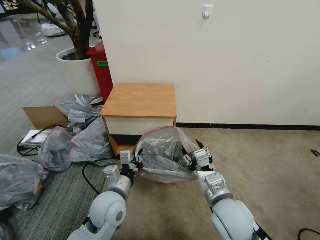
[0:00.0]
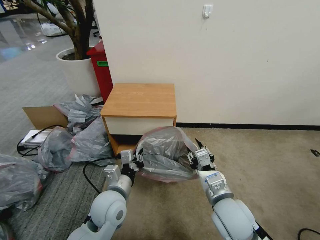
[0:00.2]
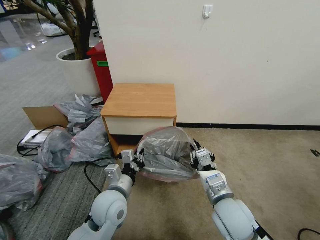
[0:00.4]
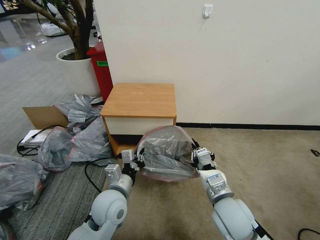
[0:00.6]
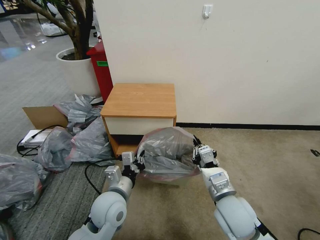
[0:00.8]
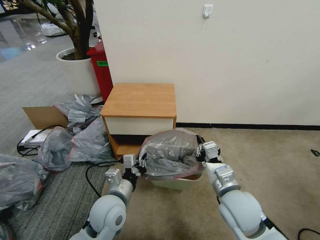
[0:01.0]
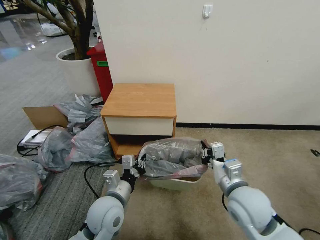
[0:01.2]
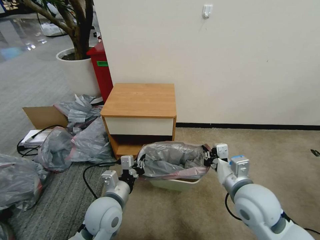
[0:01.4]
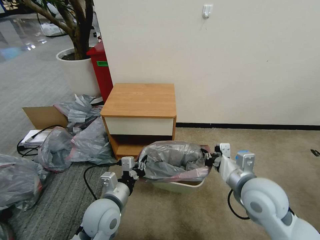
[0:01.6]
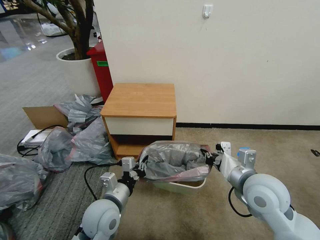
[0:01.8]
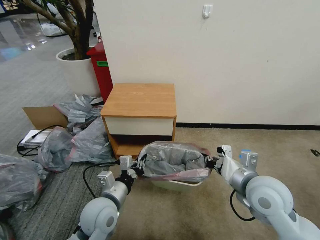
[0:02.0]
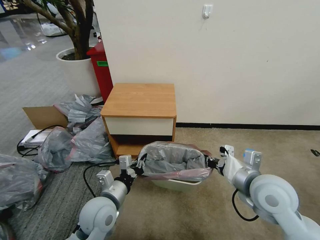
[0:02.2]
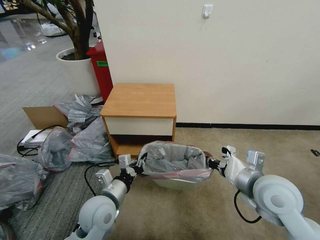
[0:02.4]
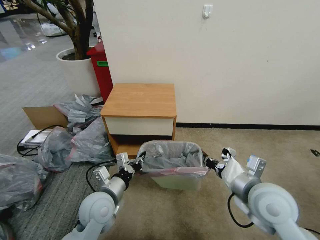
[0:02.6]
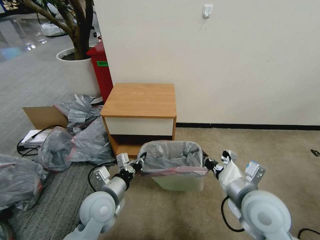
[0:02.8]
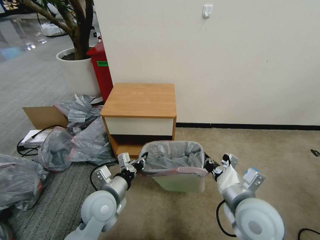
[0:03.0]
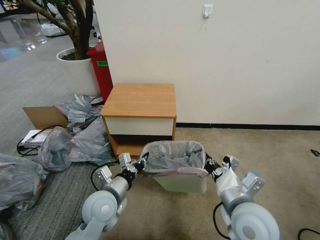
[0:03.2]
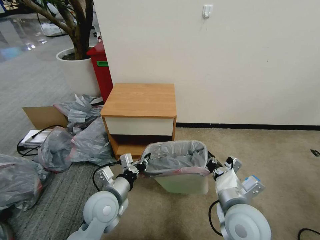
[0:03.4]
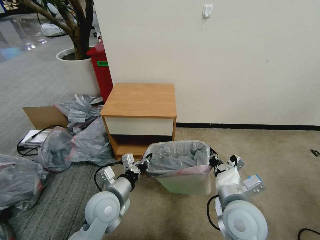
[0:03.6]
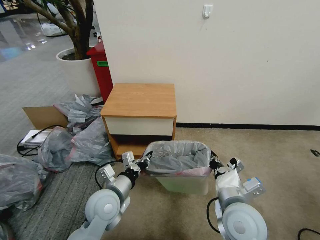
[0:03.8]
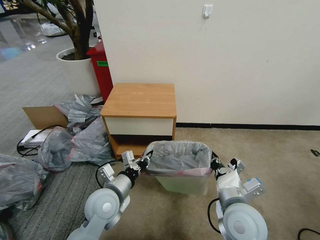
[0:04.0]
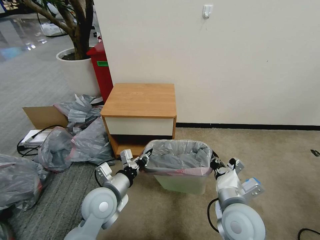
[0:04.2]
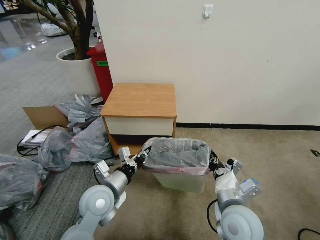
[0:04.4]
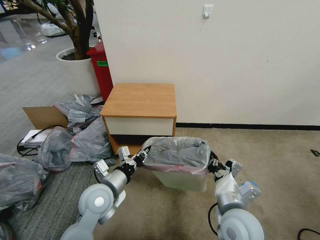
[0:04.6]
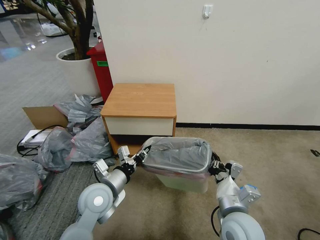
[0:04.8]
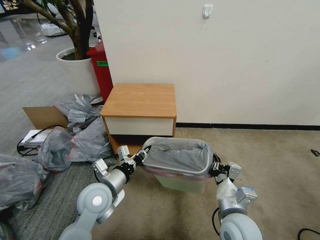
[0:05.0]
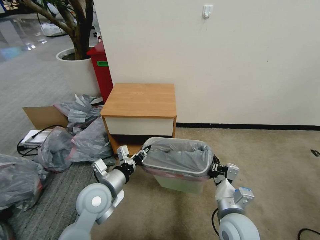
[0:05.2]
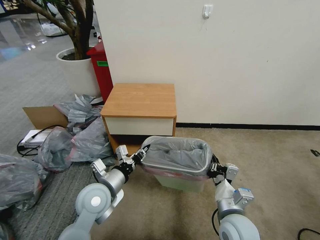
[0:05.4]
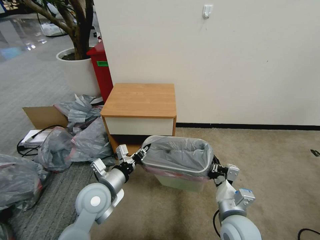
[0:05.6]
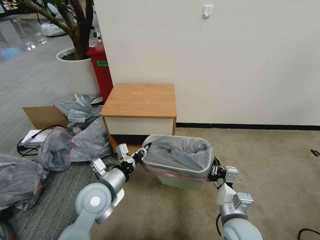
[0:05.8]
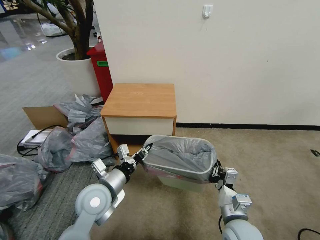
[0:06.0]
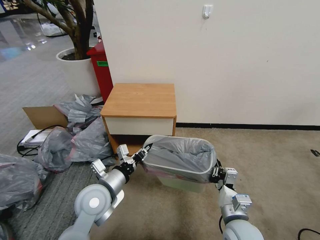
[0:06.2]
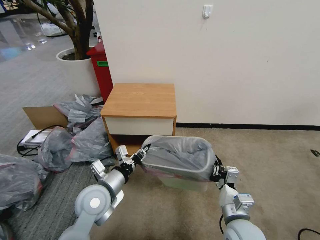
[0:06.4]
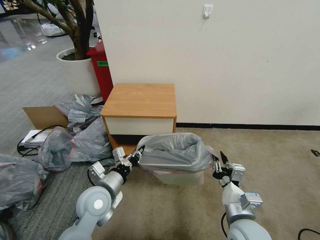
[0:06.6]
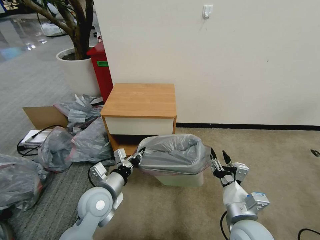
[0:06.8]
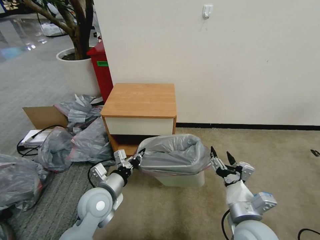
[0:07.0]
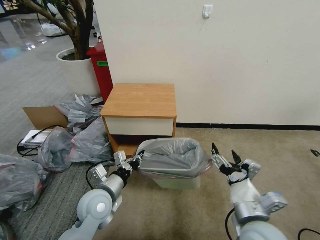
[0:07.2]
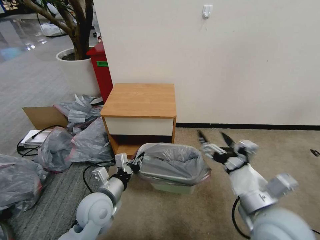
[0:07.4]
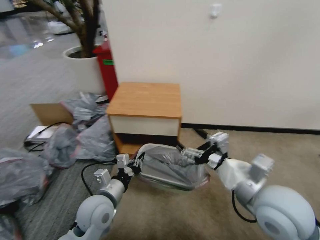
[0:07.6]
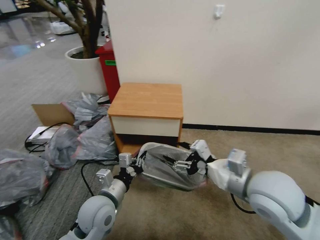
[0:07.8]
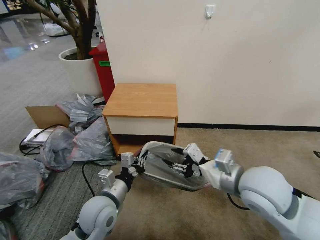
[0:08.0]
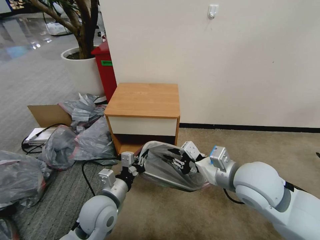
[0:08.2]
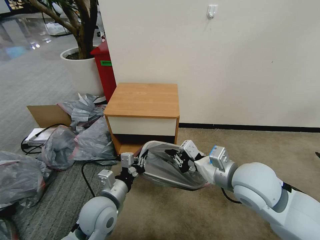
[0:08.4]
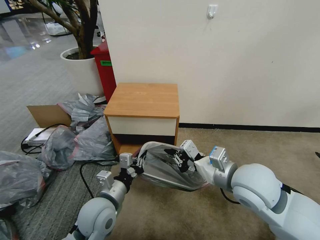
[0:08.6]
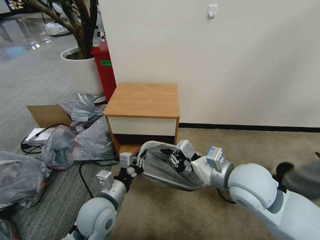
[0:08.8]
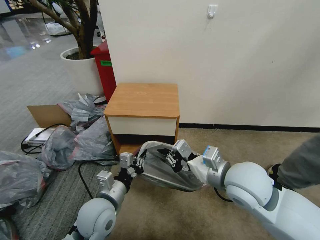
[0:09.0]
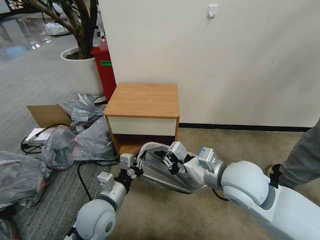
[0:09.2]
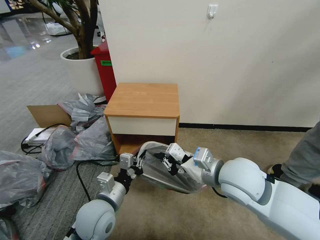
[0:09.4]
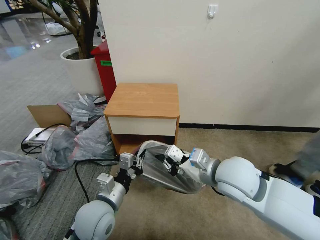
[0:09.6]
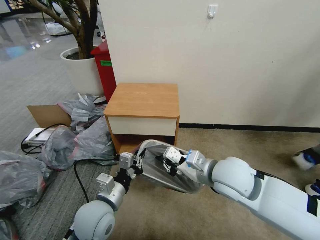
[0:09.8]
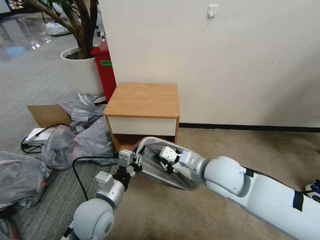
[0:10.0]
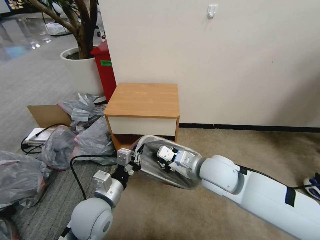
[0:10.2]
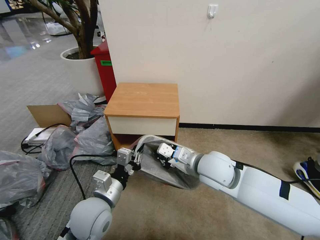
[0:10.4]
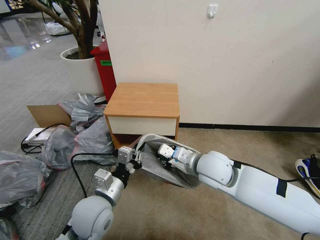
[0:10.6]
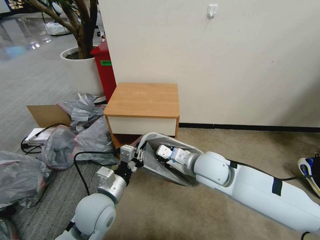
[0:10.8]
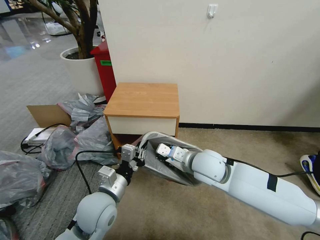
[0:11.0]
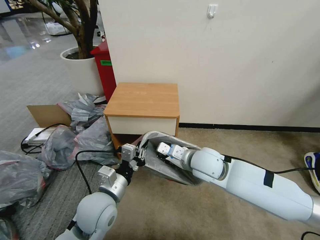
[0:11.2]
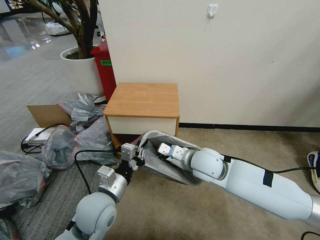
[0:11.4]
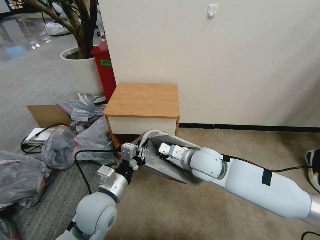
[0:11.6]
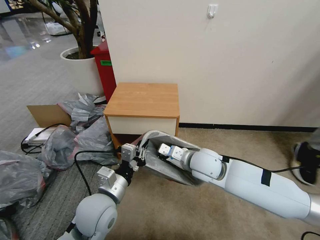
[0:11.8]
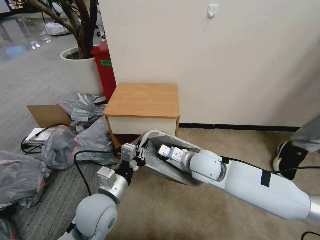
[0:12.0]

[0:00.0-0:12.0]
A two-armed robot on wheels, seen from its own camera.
Task of the whole recording: Pick up the garbage bag from the table and place it over the trash can.
0:00.0 to 0:01.6: The right gripper goes approximately 10 cm to the right and upward, and closes up.
0:03.0 to 0:04.4: The right gripper ends up some 5 cm from where it was.
0:04.4 to 0:06.0: The right gripper travels downward by roughly 10 cm.
0:06.0 to 0:07.6: The right gripper moves upward, approximately 20 cm, and opens up.
0:07.6 to 0:09.0: The right gripper is displaced forward by roughly 5 cm, and closes its fingers.
0:09.0 to 0:10.4: The right gripper moves forward, about 5 cm.
0:10.4 to 0:12.0: The right gripper changes place by approximately 5 cm.

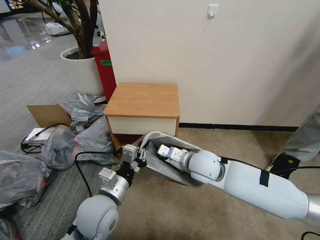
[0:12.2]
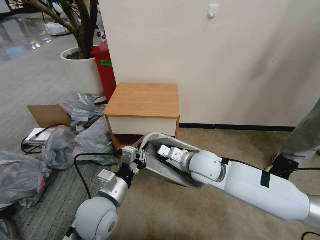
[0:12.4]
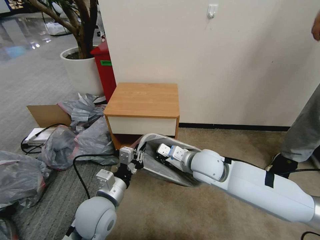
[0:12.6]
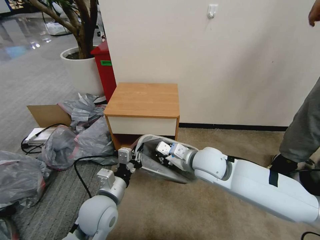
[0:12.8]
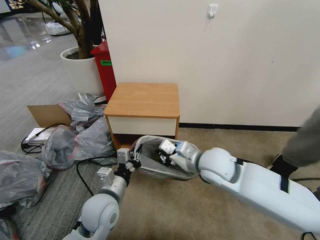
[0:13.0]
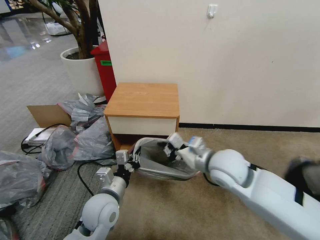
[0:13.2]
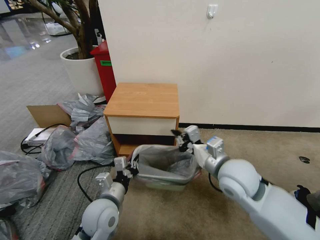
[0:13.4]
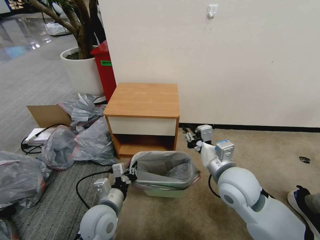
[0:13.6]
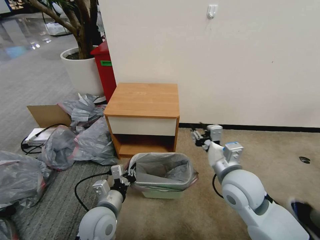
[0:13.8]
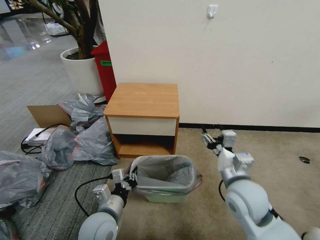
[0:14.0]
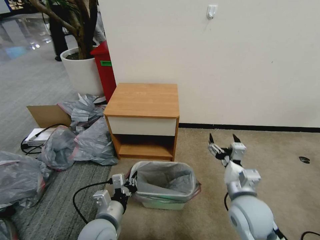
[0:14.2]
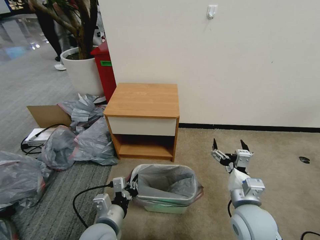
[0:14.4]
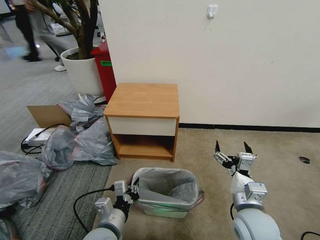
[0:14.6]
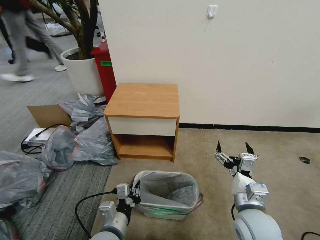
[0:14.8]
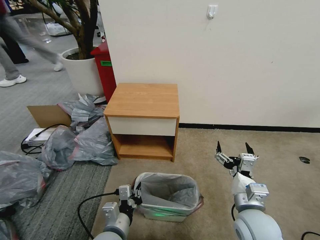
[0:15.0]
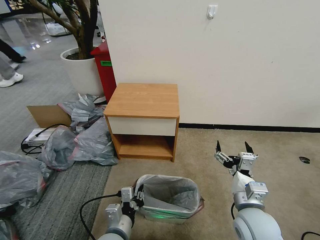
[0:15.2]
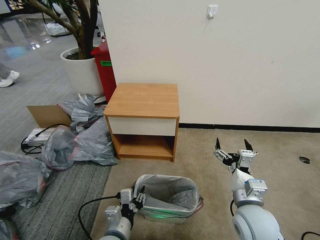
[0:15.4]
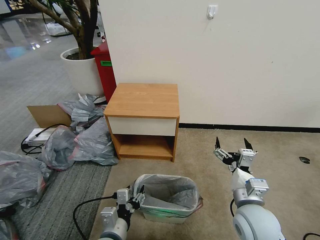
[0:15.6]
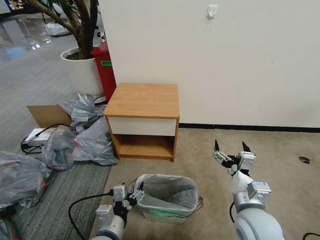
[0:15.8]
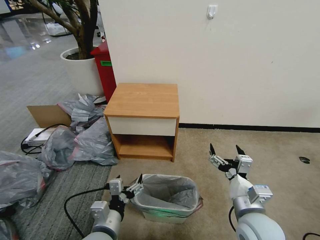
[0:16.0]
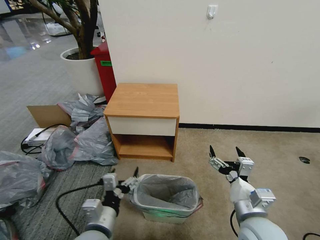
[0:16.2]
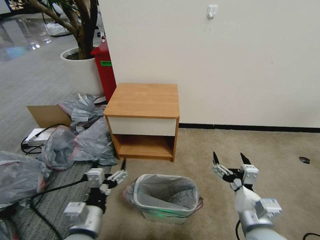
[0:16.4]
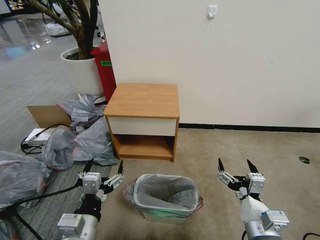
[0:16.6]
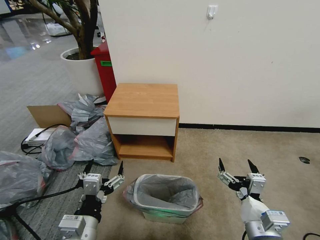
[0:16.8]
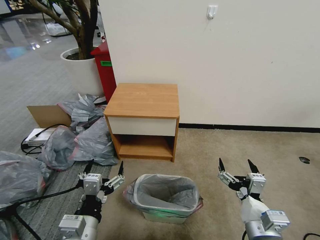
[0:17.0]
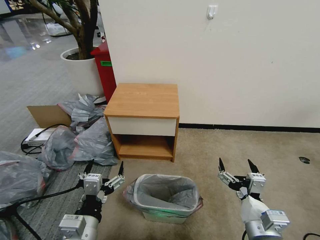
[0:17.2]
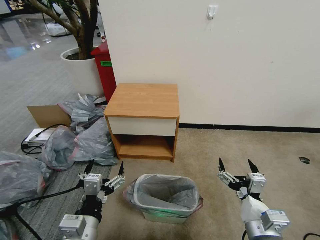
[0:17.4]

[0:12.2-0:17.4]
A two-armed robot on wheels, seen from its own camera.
Task of the whole recording: Pick up the garbage bag from the table and place it over the trash can.
0:12.2 to 0:14.0: The left gripper travels downward by about 5 cm; the right gripper travels backward and to the right by approximately 15 cm, and opens its fingers.
0:14.0 to 0:15.6: Both grippers move backward, some 5 cm. The left gripper opens its fingers.
0:15.6 to 0:17.4: The right gripper goes roughly 10 cm backward. Meanwhile the left gripper travels upward by about 10 cm, and opens its fingers.

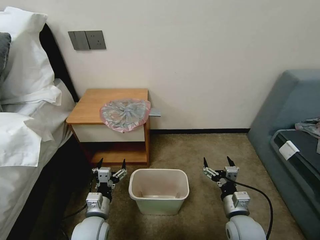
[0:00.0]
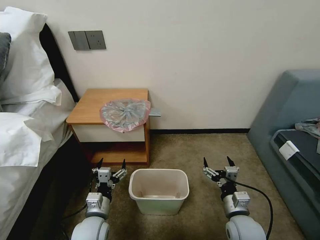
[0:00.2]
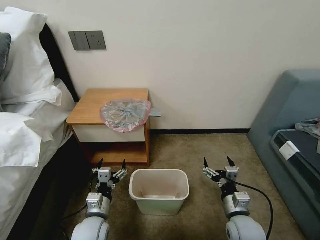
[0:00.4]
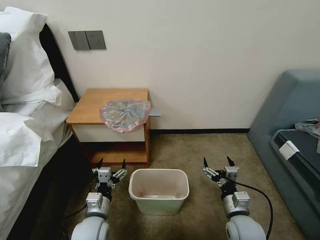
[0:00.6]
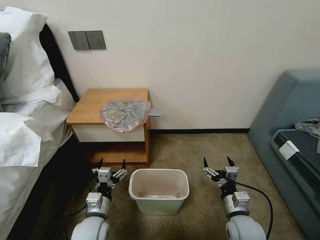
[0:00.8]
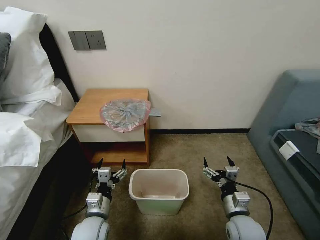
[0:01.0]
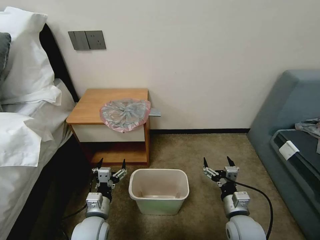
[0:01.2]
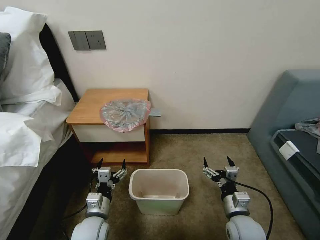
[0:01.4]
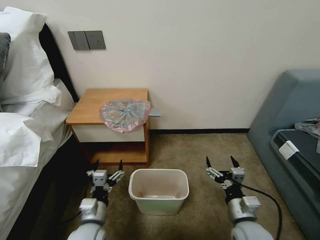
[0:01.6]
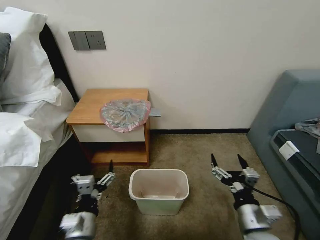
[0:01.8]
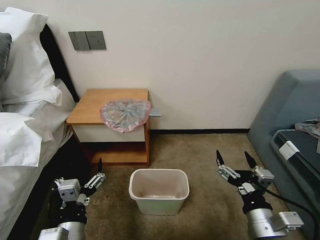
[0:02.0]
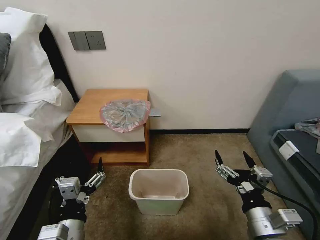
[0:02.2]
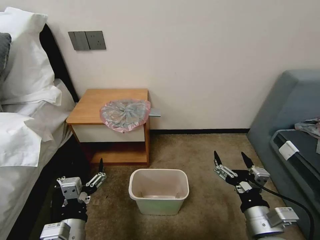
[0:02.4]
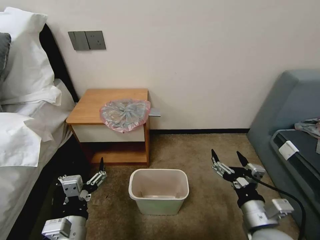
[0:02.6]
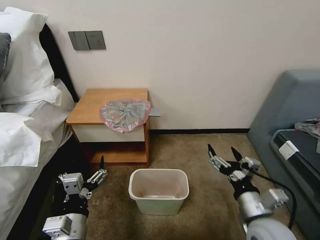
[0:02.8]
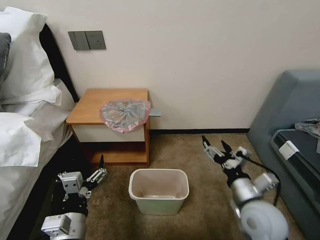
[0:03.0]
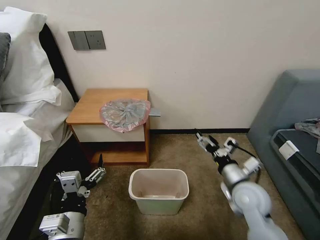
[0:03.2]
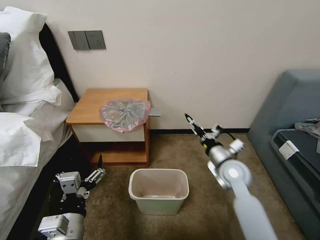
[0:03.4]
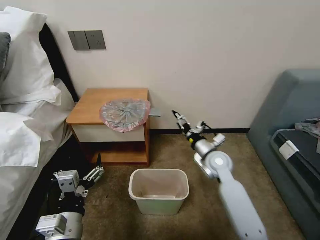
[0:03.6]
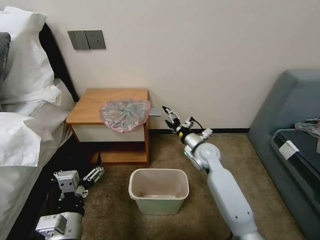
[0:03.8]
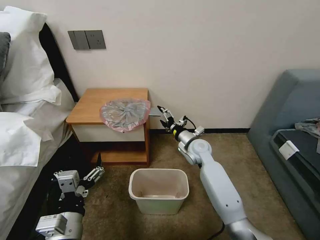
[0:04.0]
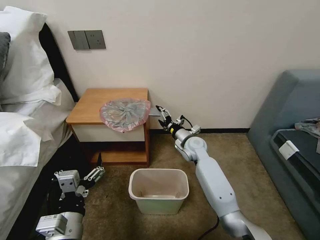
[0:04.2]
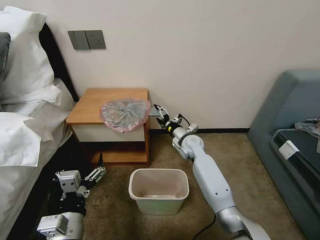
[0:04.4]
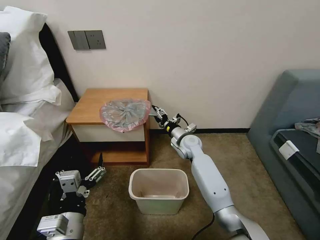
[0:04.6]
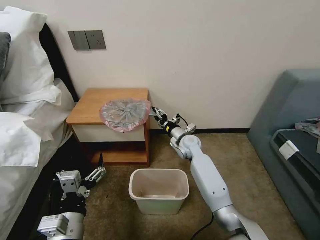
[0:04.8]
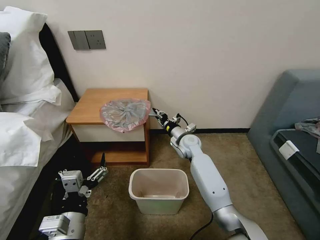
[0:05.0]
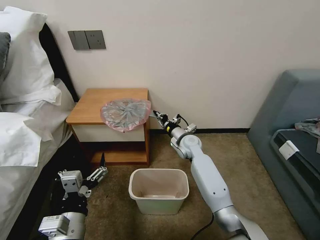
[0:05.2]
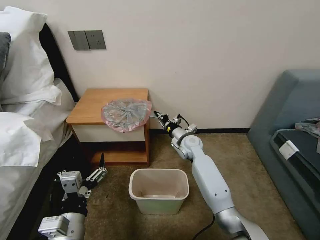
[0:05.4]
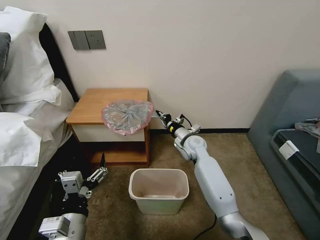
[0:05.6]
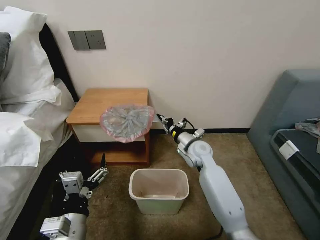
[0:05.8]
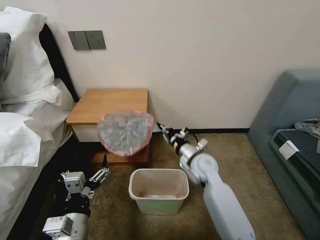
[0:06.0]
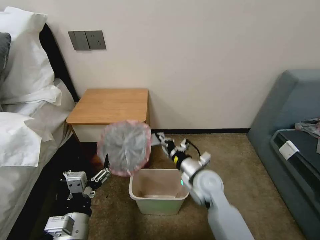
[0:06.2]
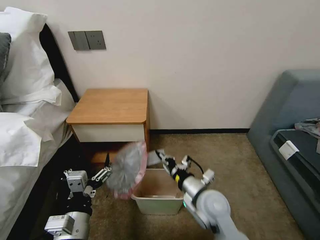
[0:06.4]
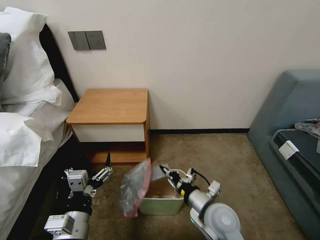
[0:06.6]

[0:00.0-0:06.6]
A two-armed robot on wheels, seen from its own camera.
Task of the whole recording: Pick up the garbage bag from the table and place it over the trash can.
0:01.6 to 0:03.2: The right gripper goes about 10 cm forward and upward. Meanwhile the left gripper goes approximately 10 cm upward and backward.
0:03.2 to 0:05.0: The right gripper moves forward and to the left, roughly 25 cm, and closes.
0:05.0 to 0:06.6: The right gripper heads backward, covering some 25 cm.
